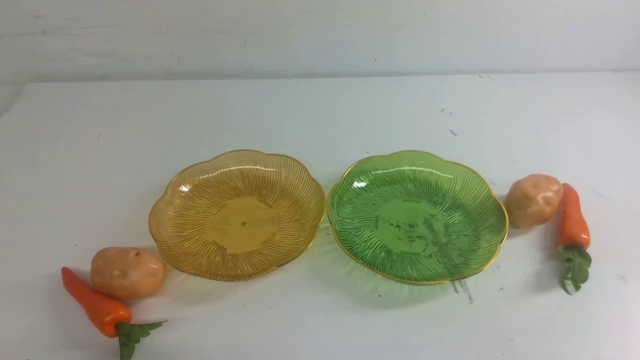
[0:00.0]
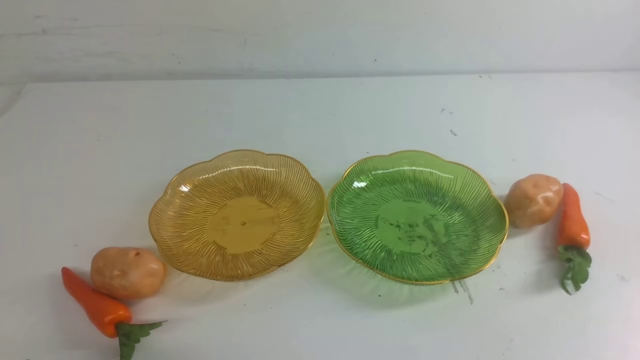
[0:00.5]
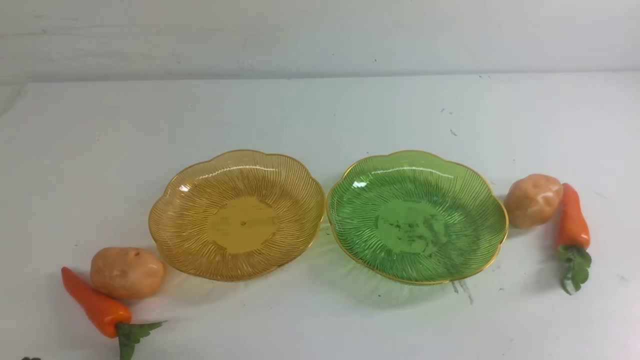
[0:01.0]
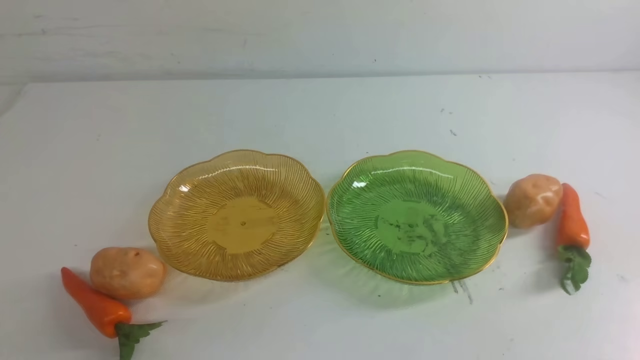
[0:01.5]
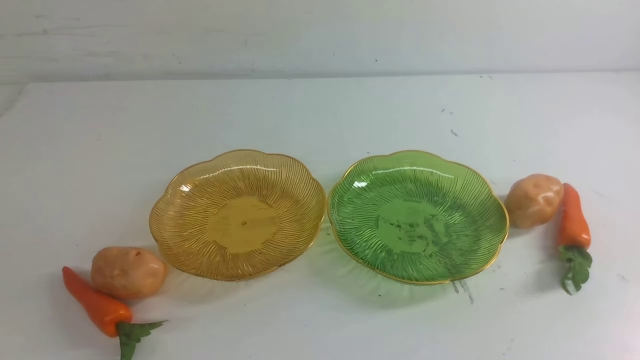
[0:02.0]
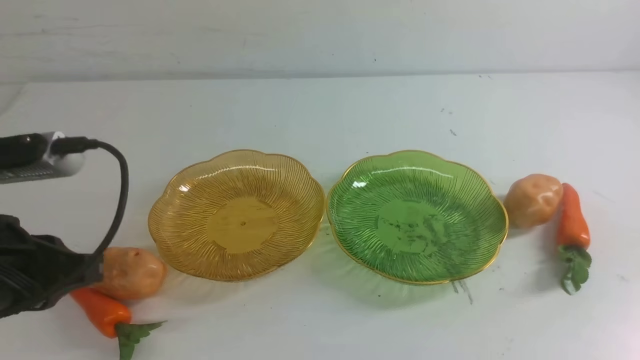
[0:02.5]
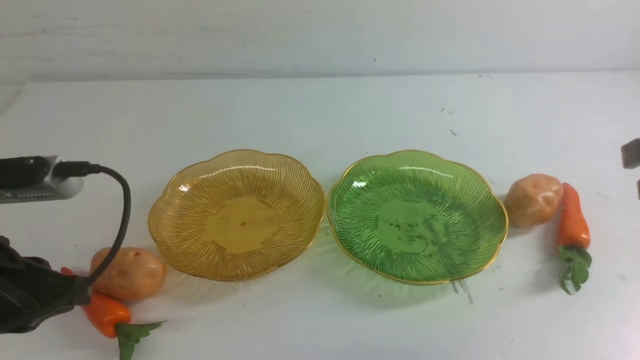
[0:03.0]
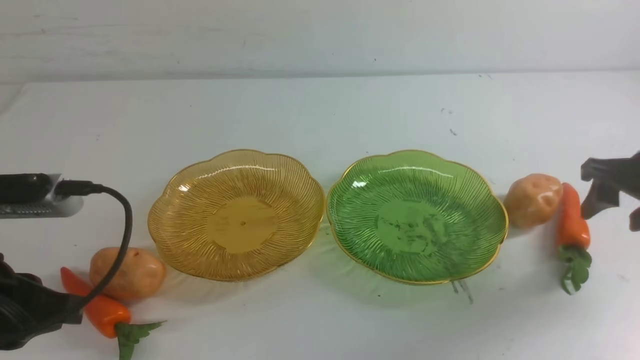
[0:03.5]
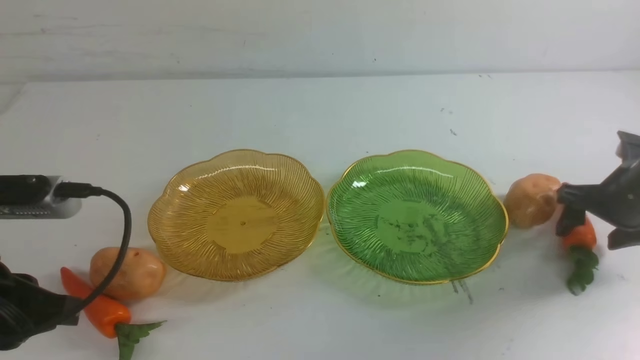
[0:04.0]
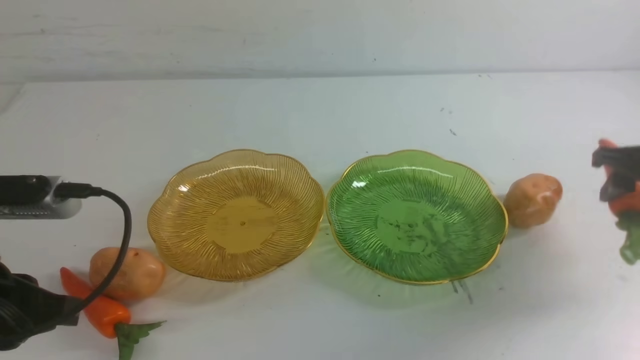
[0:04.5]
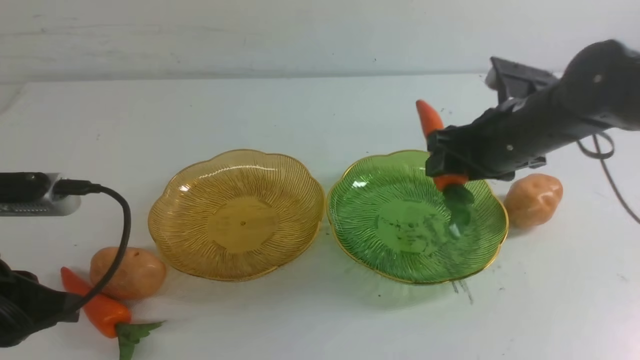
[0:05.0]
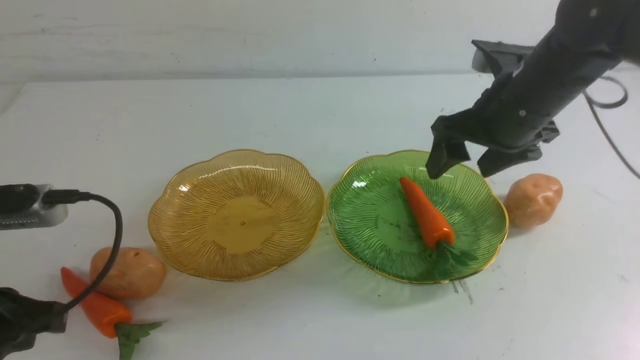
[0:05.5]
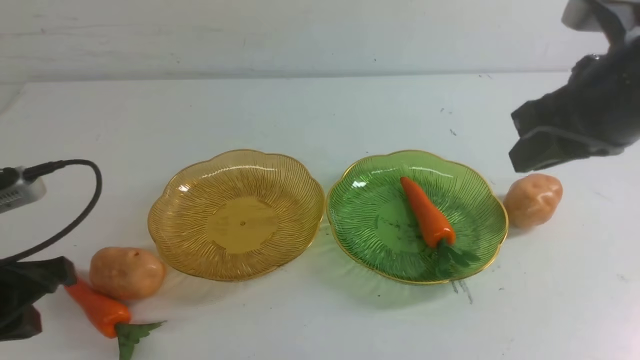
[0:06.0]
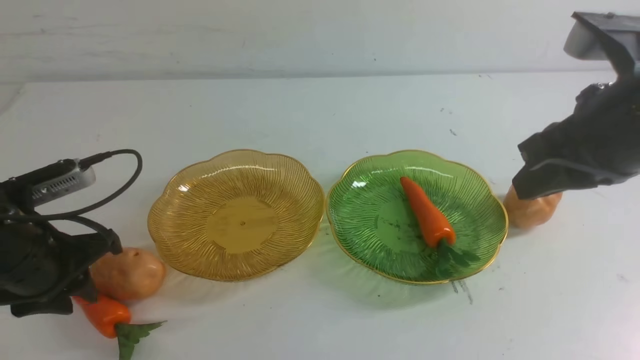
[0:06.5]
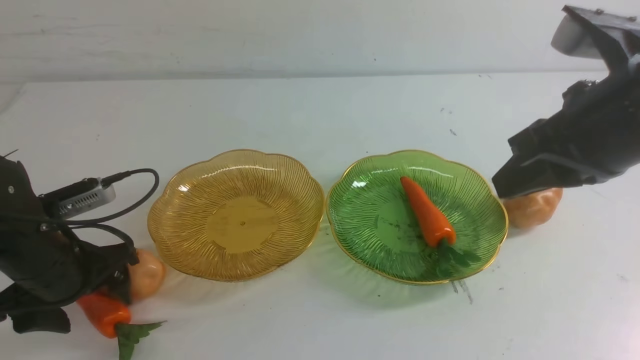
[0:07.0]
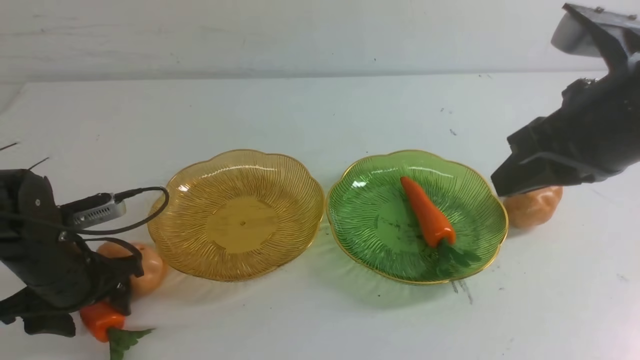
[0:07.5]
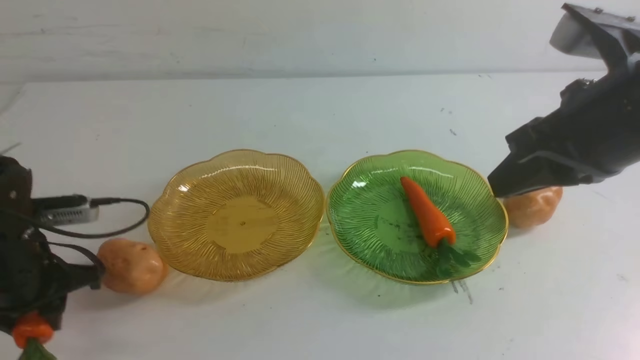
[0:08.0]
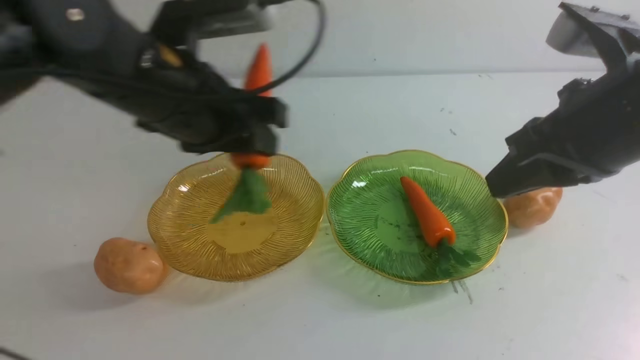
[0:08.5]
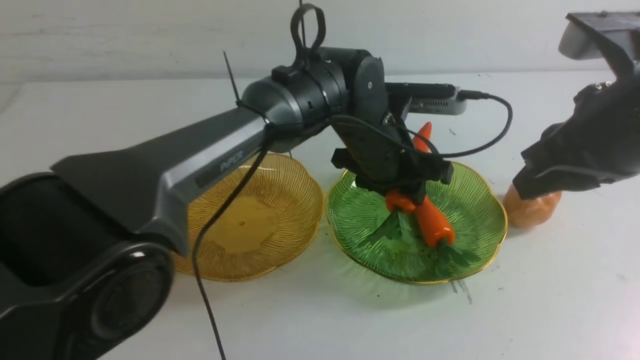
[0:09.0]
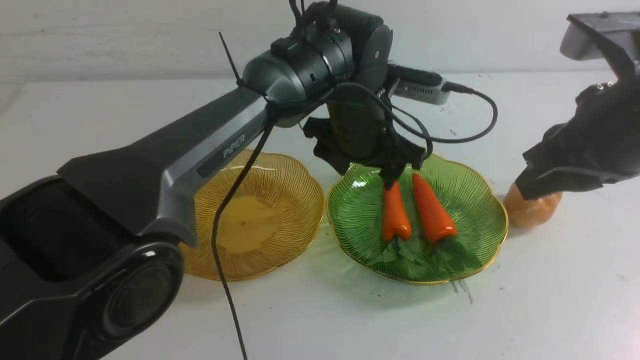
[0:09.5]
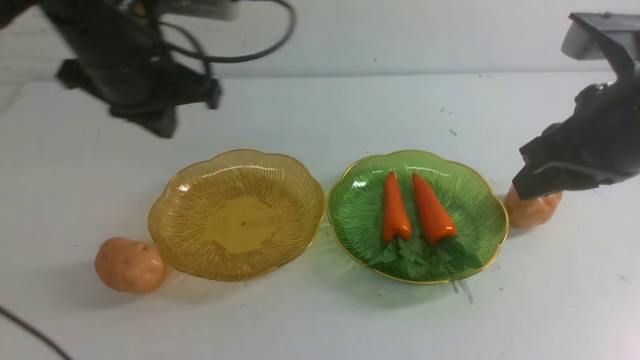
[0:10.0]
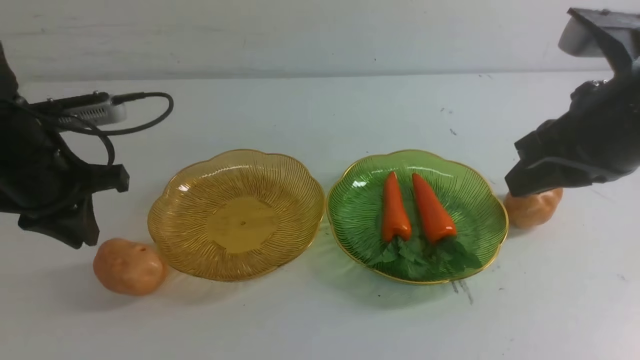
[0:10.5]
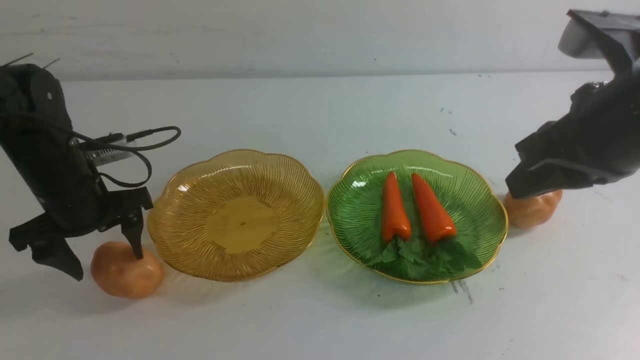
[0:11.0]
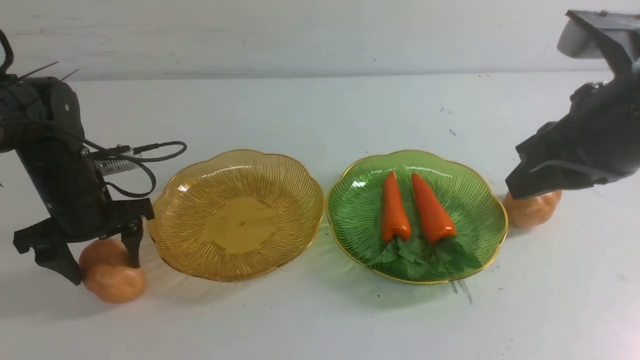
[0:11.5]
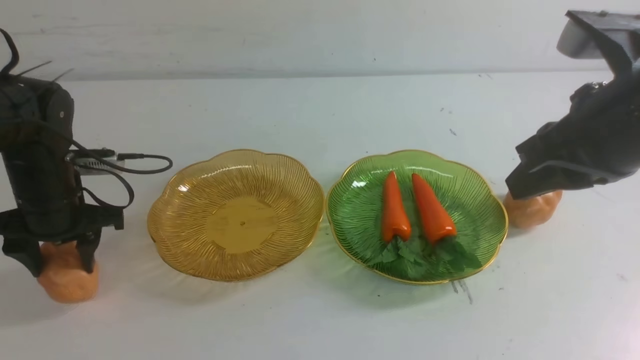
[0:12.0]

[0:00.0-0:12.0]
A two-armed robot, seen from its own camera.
Step, 0:00.0 to 0:05.0: use the right arm to grab a carrot and put it into the right plate.
Step, 0:05.5 to 0:09.0: use the left arm to grab a carrot and put it into the right plate.
0:02.0 to 0:04.0: The left gripper travels forward and downward by approximately 10 cm; the right gripper moves forward, roughly 30 cm, and opens up.
0:04.0 to 0:06.0: The left gripper travels forward and downward by roughly 10 cm. The right gripper travels upward, to the left and backward by approximately 25 cm, and closes.
0:06.0 to 0:08.0: The left gripper travels downward and back again, roughly 10 cm each way, and opens, then closes again.
0:08.0 to 0:10.0: The left gripper goes approximately 15 cm to the right, upward and forward, and closes.
0:10.0 to 0:12.0: The left gripper is displaced to the left and downward by some 20 cm, and opens.

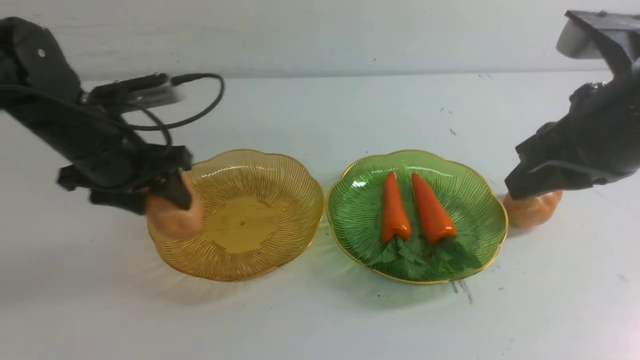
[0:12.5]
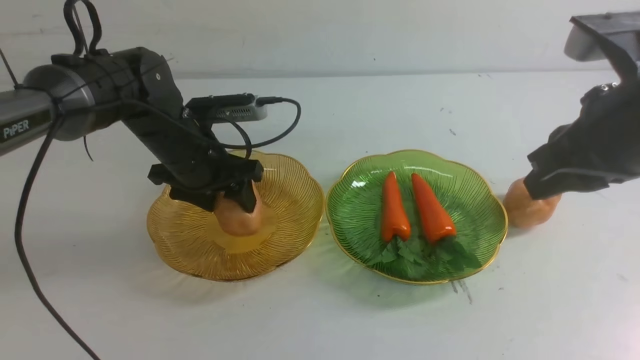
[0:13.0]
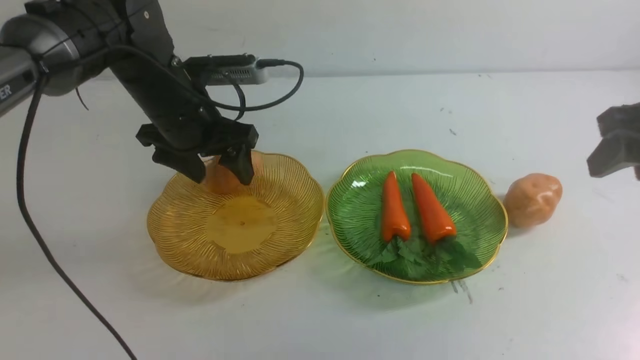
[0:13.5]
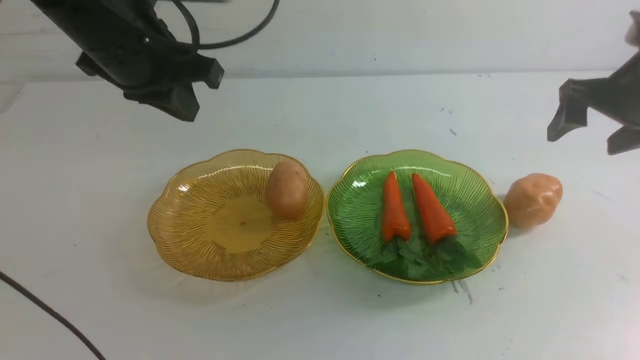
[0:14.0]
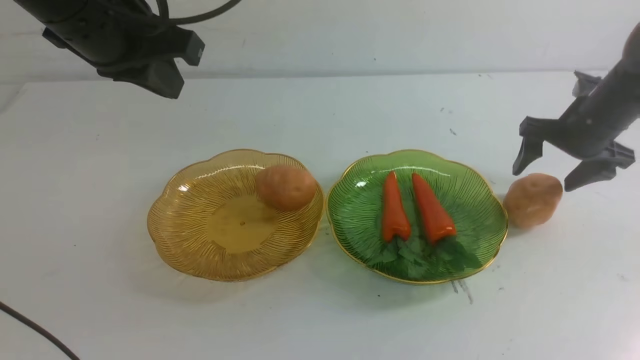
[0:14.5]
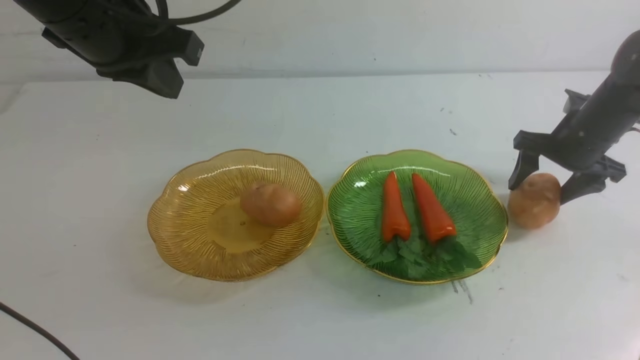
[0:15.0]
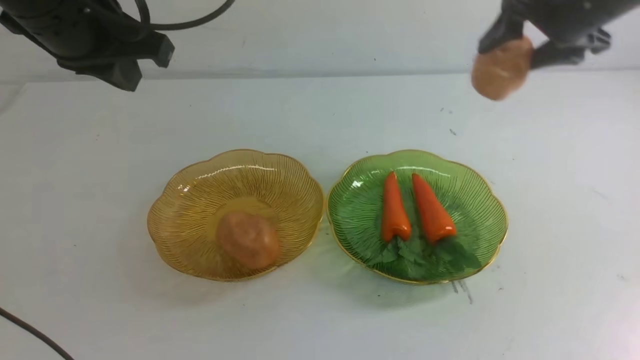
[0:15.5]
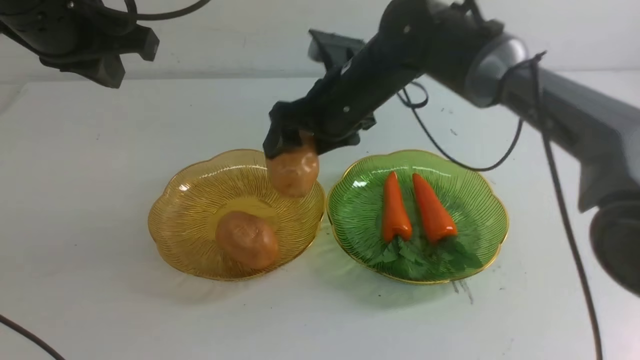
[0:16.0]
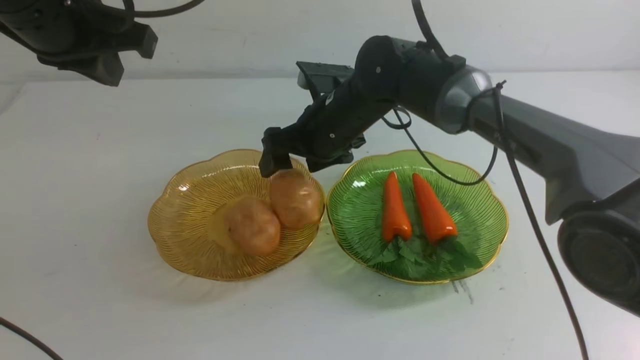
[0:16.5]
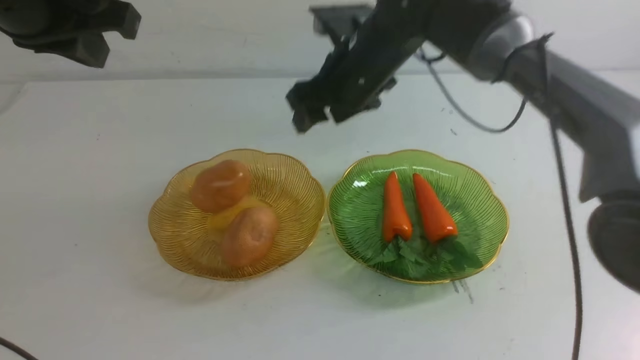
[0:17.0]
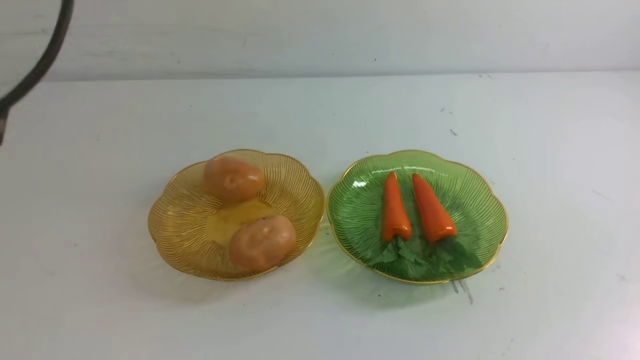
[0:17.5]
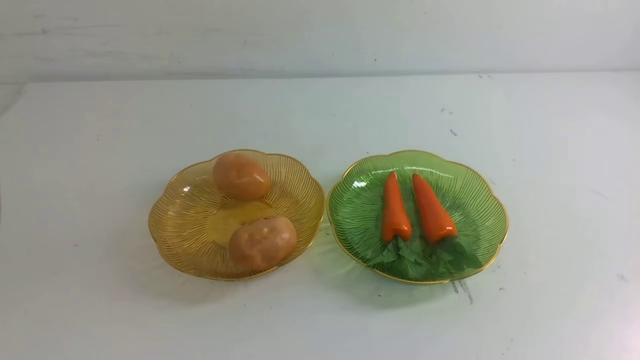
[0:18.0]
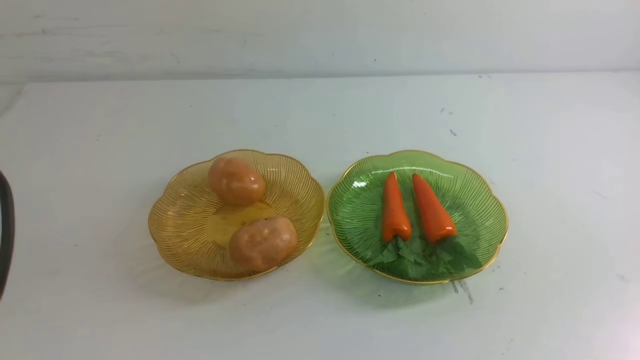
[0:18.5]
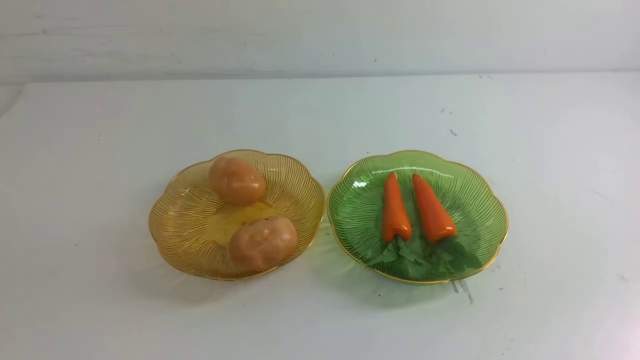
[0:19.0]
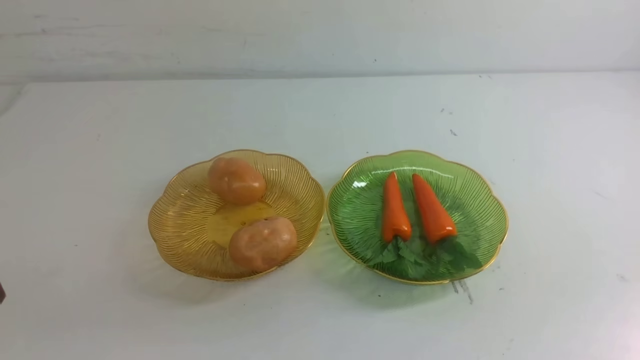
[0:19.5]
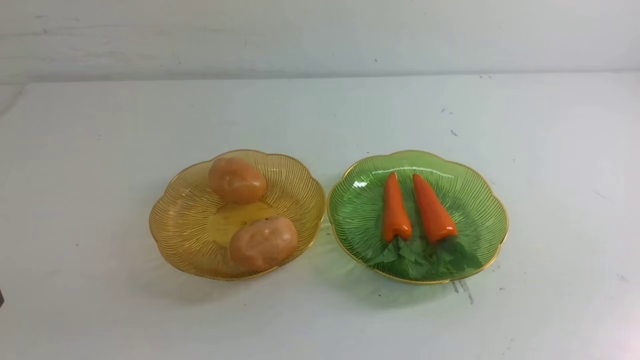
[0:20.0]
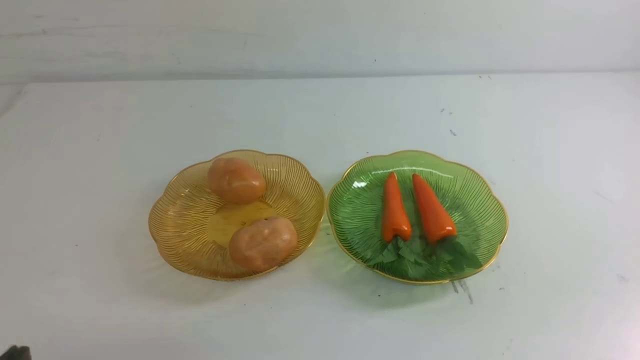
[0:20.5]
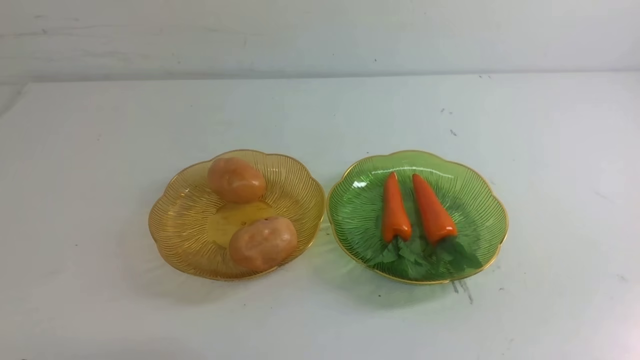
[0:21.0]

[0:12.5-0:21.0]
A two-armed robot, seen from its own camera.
Step, 0:13.5 to 0:16.5: Grab a potato with your right arm and put it on the left plate.
0:12.5 to 0:14.5: The right gripper is displaced forward, downward and to the right by about 25 cm, and opens its fingers. The left gripper is displaced upward by about 15 cm, and closes its fingers.
0:14.5 to 0:16.5: The right gripper goes approximately 30 cm to the left.
0:16.5 to 0:19.0: The right gripper travels backward and to the right by roughly 50 cm, and closes; the left gripper is displaced backward by some 25 cm.
